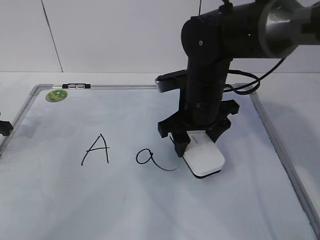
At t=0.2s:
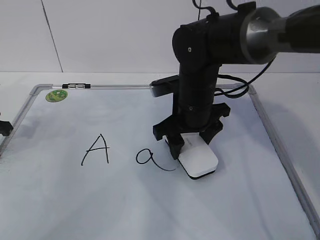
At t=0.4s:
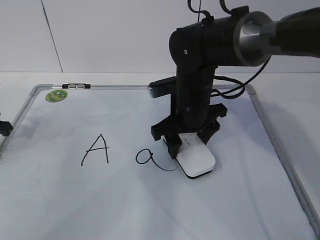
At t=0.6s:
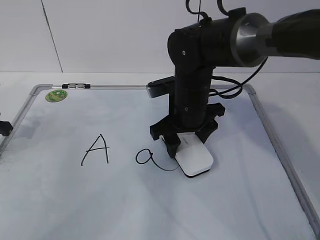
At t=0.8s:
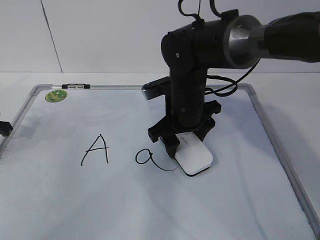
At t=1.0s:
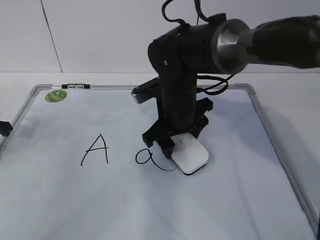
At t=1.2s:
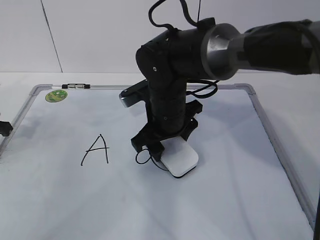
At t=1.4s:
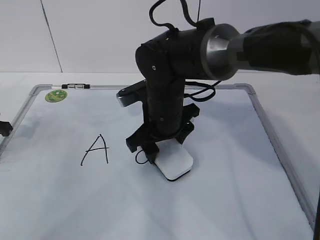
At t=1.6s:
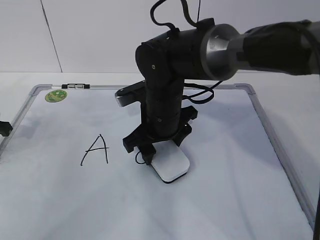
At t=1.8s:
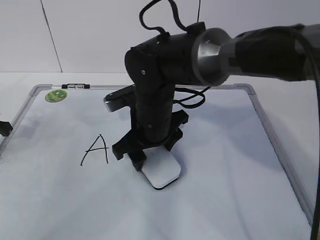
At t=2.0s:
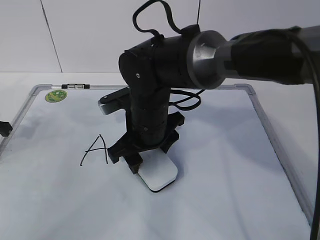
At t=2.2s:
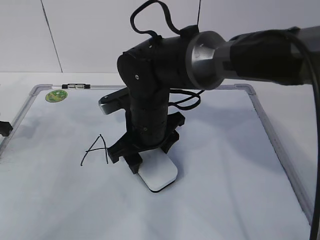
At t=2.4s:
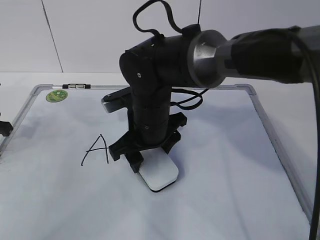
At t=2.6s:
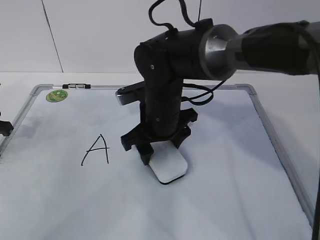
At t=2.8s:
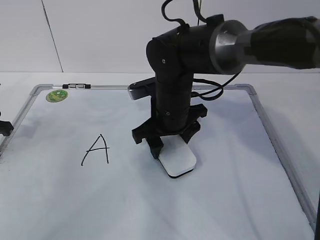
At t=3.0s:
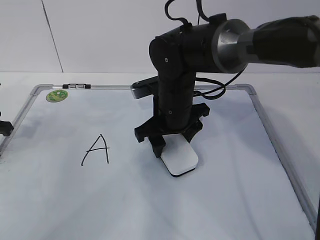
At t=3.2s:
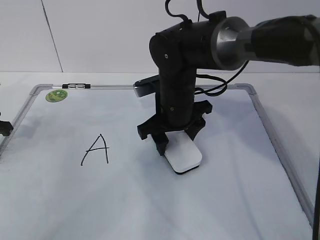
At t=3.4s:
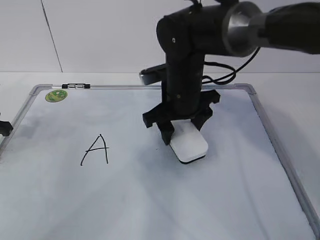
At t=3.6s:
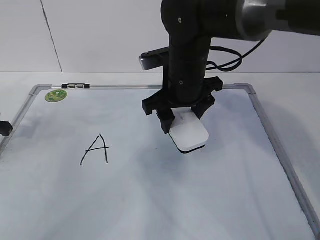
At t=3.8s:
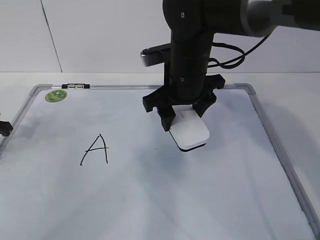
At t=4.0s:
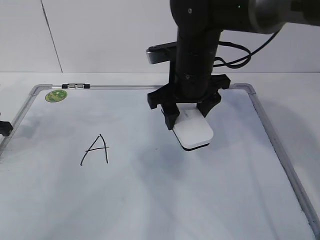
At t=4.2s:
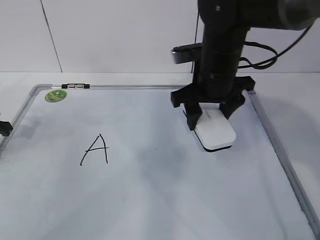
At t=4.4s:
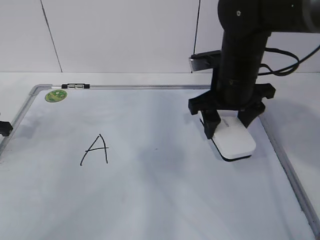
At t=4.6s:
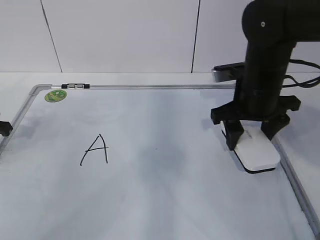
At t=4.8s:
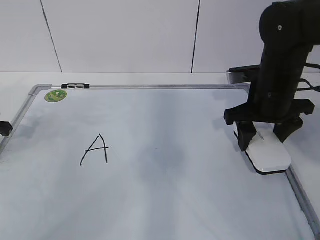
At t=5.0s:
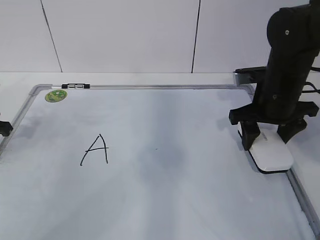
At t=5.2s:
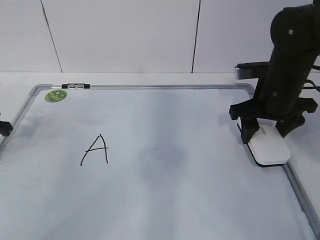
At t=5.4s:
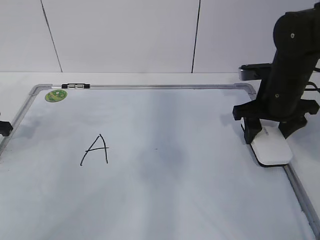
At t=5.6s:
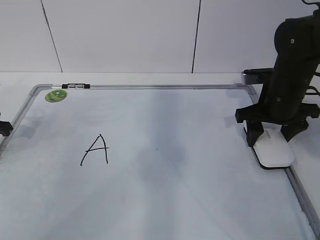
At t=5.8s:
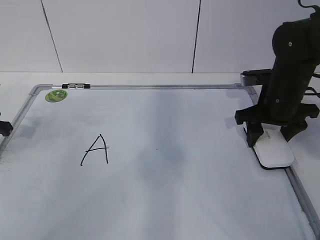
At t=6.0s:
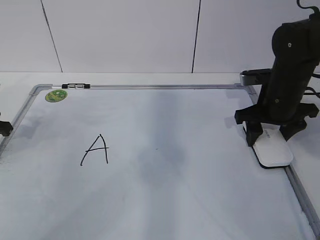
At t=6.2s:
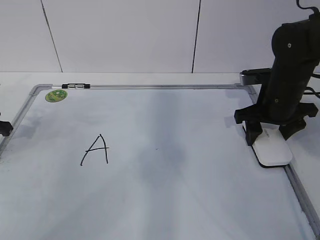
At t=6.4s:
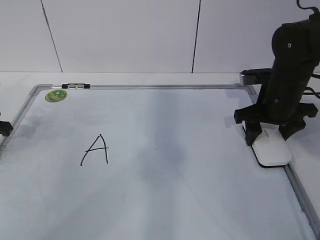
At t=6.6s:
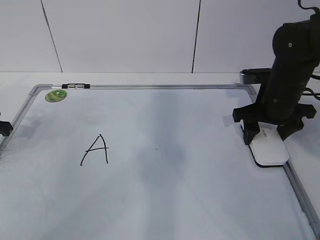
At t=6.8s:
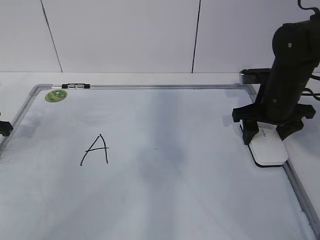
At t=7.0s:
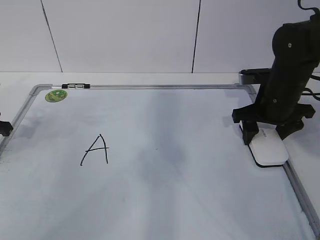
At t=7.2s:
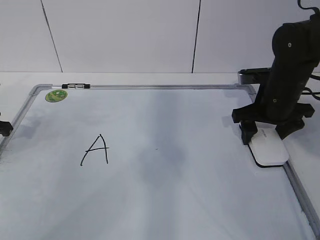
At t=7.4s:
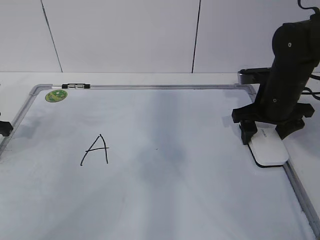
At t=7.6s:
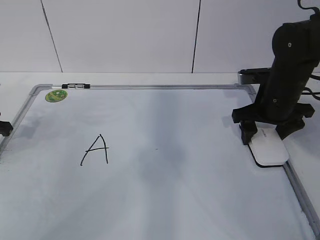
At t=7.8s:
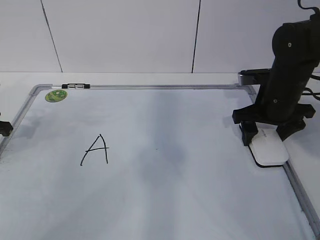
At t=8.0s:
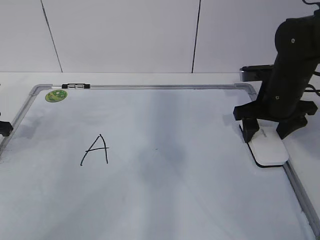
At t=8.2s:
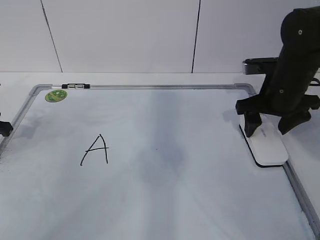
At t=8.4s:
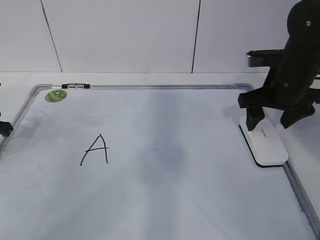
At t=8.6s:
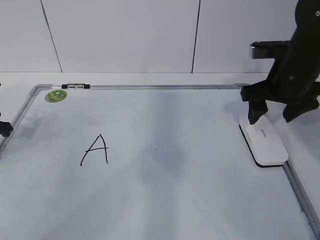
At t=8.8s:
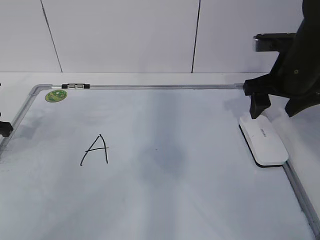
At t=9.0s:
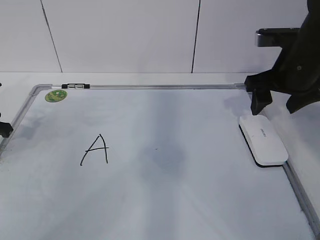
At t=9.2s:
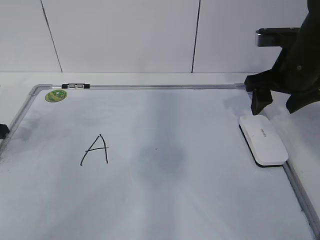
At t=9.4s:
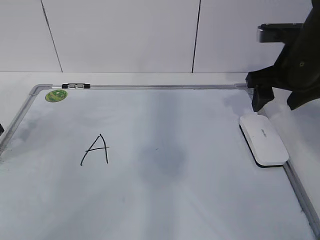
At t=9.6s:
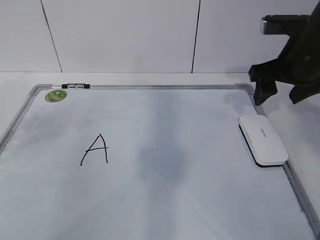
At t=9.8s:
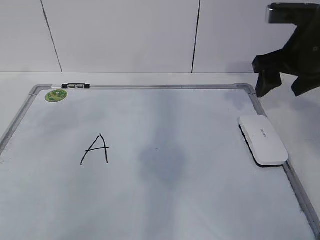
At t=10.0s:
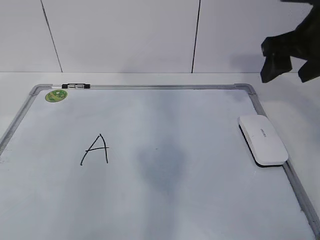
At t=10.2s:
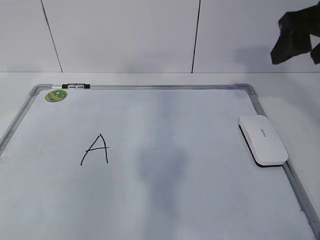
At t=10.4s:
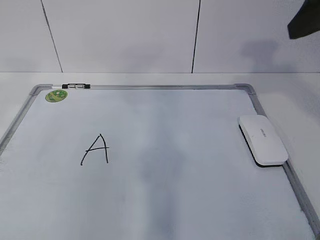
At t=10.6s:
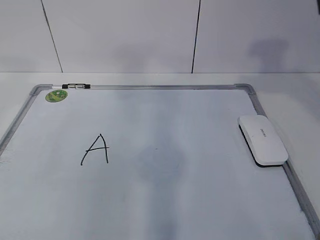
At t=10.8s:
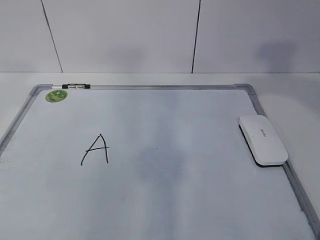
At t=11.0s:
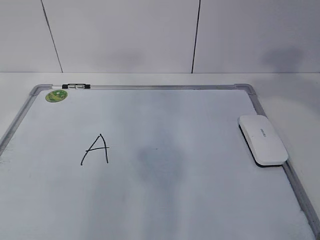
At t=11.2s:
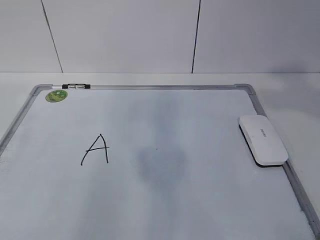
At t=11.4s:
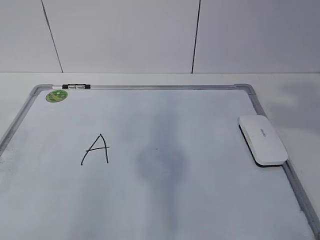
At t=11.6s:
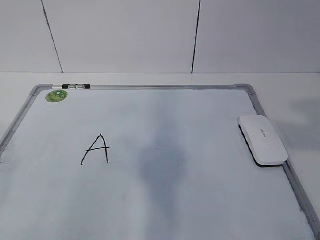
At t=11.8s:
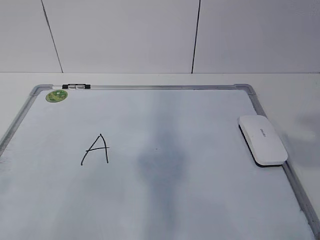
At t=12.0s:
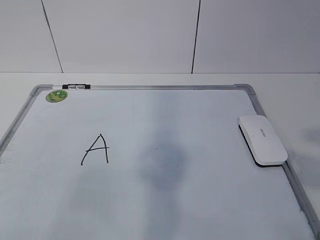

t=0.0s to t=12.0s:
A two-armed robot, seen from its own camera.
Task of the whole recording: pick up the eraser on the blackboard and erase the letter "a".
Step, t=0.0s to t=2.8s: Put down the eraser with your right hand.
t=0.0s to t=1.6s: The right gripper shifts roughly 5 cm to the left.
t=1.6s to t=3.0s: There are only small adjustments of the grippers.
t=3.0s to t=4.4s: The right gripper shifts roughly 10 cm to the right and upward.
t=4.4s to t=6.0s: The right gripper heads to the right, covering approximately 10 cm.
t=6.0s to t=7.6s: The right gripper opens up.
t=7.6s to t=9.0s: The right gripper shifts roughly 5 cm upward.
t=9.0s to t=10.4s: Both grippers move upward and backward, some 20 cm. The left gripper opens up.
t=10.4s to t=12.0s: The right gripper moves backward, roughly 25 cm.

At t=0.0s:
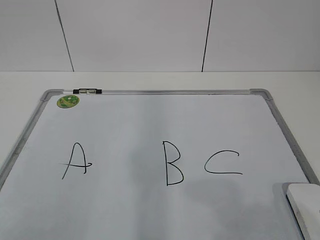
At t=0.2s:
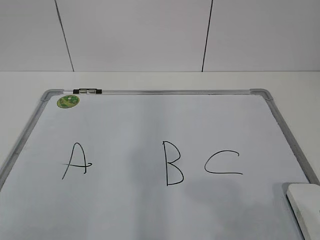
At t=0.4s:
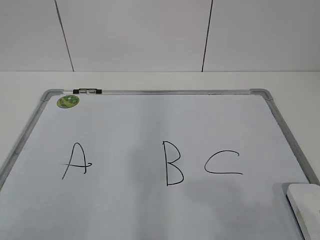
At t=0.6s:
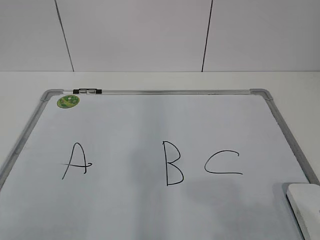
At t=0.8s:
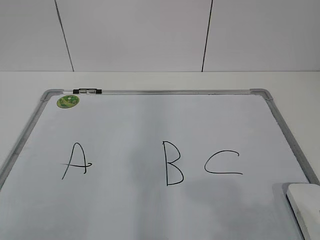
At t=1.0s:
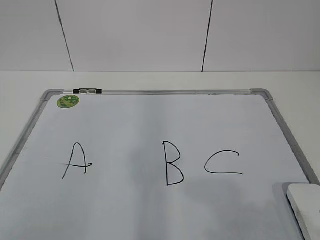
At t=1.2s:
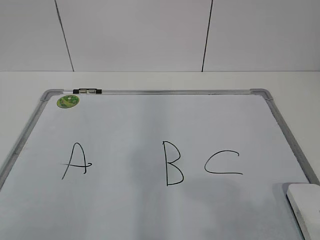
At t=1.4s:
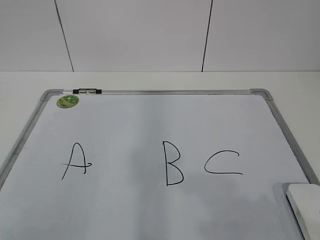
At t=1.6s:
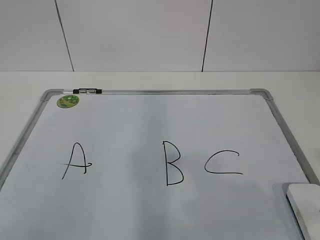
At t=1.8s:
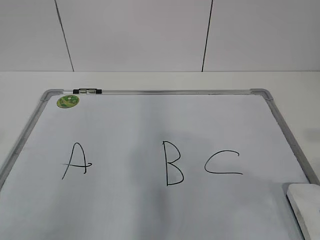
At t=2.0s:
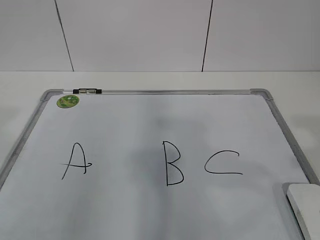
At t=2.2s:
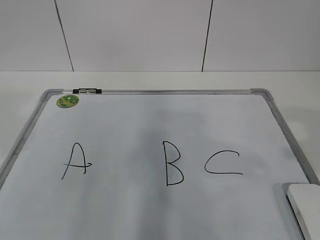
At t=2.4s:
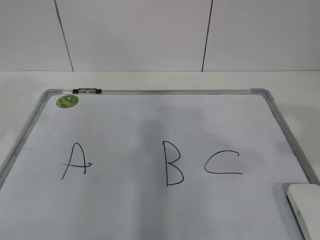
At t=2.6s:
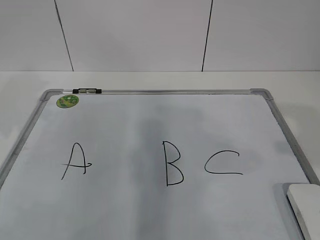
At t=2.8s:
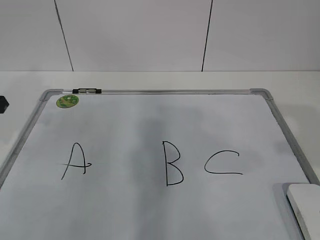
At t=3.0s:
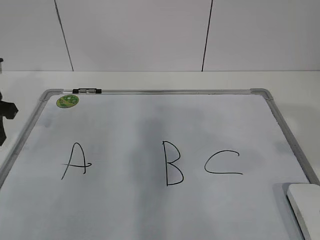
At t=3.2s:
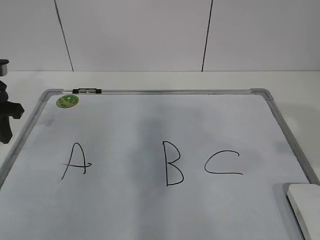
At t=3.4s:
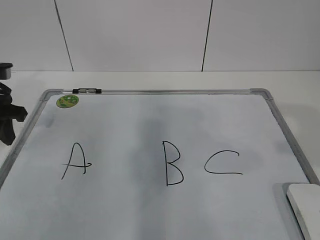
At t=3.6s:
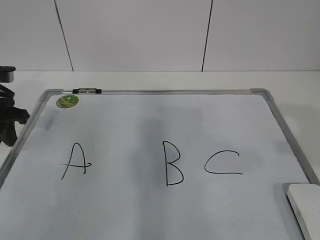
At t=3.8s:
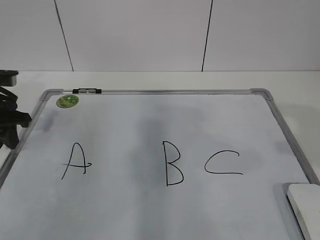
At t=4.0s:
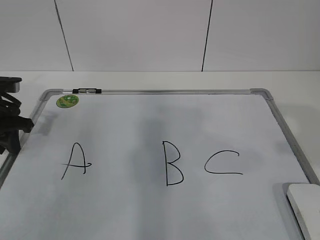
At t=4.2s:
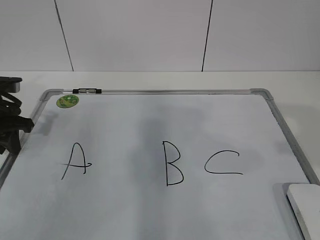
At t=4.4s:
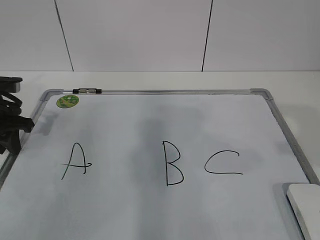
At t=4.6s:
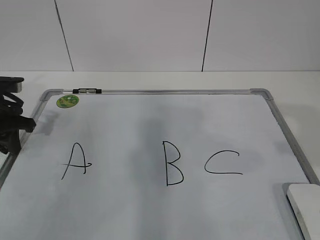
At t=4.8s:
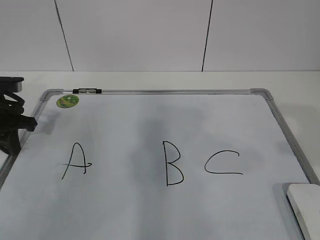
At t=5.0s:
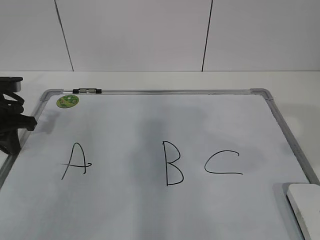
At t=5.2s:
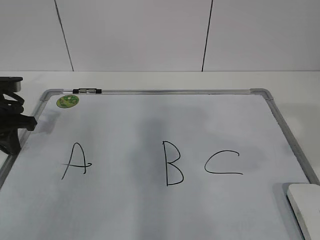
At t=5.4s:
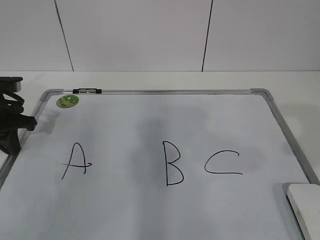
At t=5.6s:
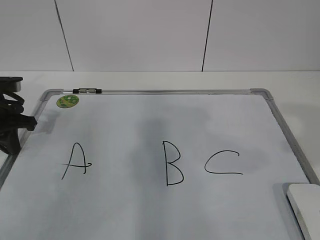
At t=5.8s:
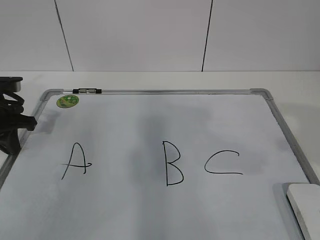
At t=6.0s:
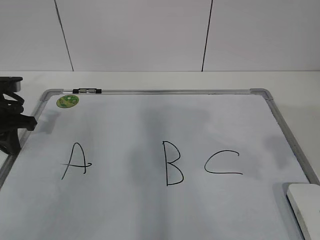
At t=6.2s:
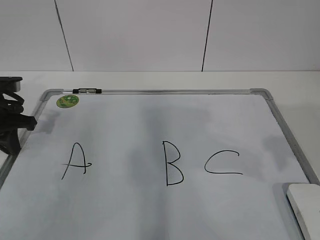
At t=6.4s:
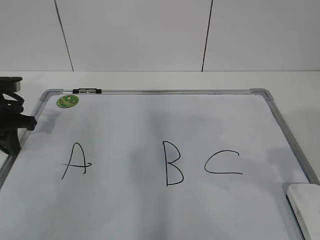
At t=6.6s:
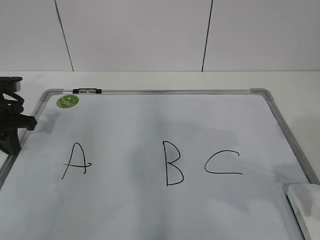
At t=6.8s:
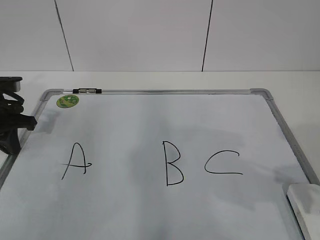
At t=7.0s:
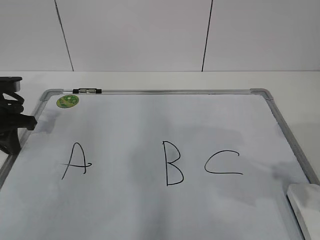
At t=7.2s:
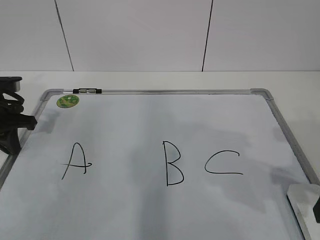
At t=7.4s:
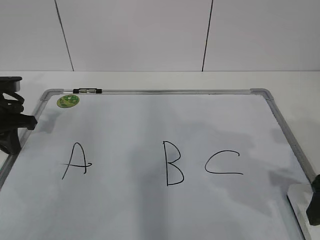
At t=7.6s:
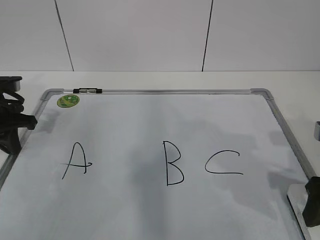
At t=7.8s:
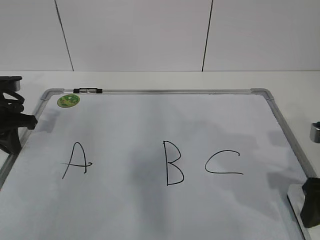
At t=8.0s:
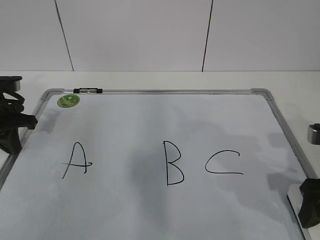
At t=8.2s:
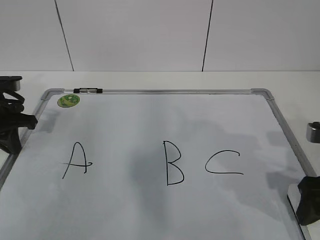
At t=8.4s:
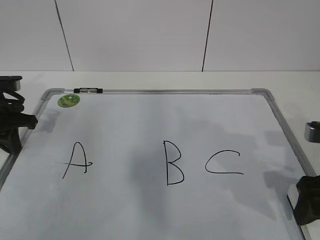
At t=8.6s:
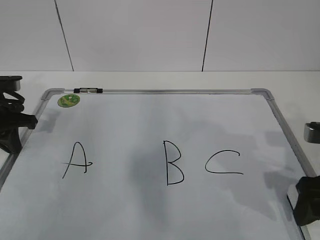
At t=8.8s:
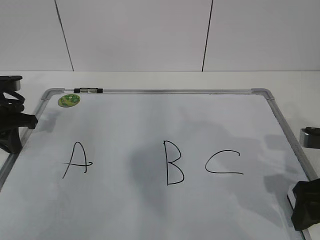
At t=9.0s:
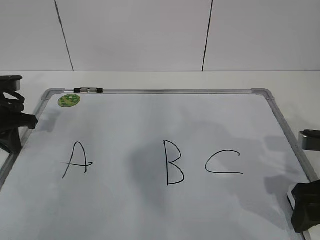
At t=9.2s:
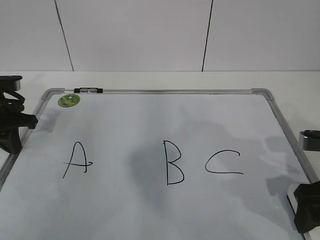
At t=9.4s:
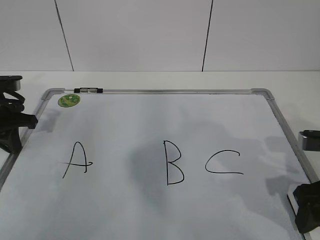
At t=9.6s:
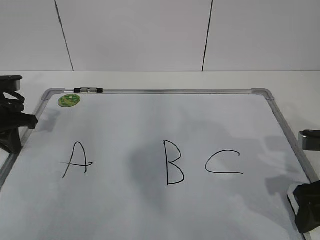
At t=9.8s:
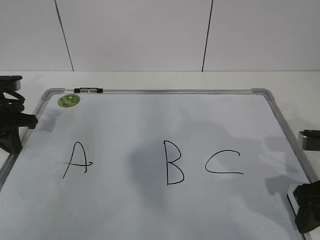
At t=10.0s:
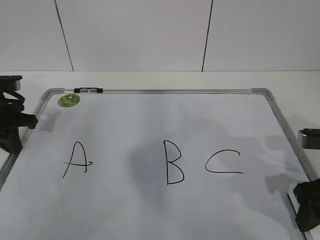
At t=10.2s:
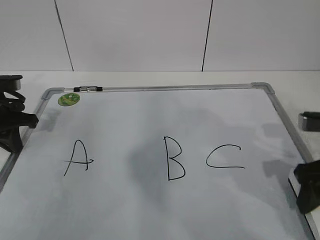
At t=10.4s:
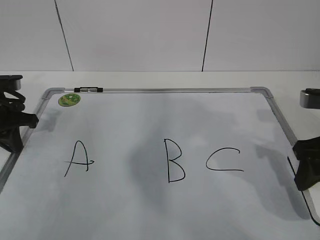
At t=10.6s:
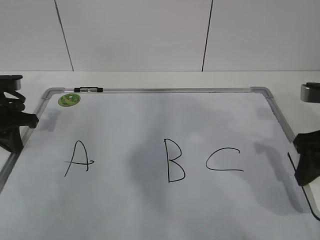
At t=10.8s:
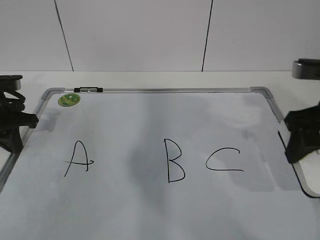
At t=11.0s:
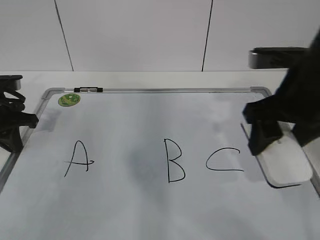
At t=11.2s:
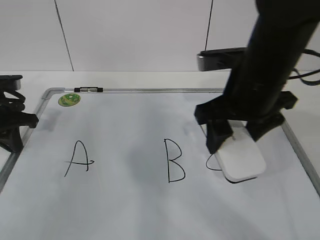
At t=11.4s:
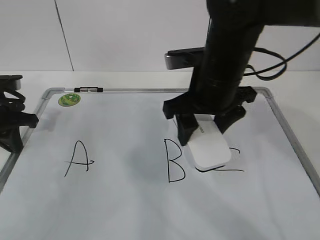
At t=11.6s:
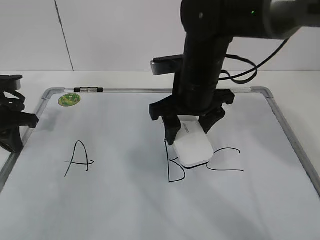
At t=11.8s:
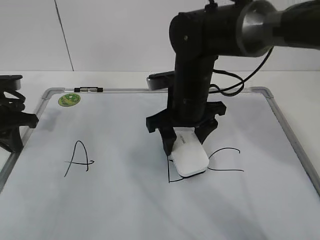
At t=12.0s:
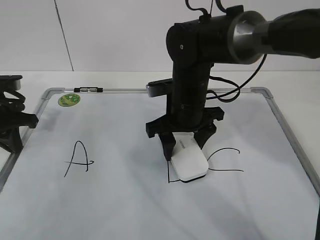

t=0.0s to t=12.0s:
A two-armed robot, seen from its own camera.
Task of the whole recording: pick up the eraser on the blackboard and erase the letter "B".
t=1.6s to t=3.0s: The right gripper moves forward, roughly 10 cm; the left gripper goes approximately 30 cm forward.
t=3.0s to t=4.4s: The left gripper heads downward, covering roughly 5 cm.
t=6.0s to t=7.6s: The right gripper moves downward, roughly 10 cm.
t=7.6s to t=9.0s: The grippers move only a little.
t=9.0s to t=10.4s: The right gripper changes place by about 5 cm.
t=10.4s to t=12.0s: The right gripper moves to the left and forward, approximately 25 cm.
